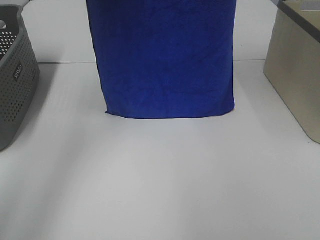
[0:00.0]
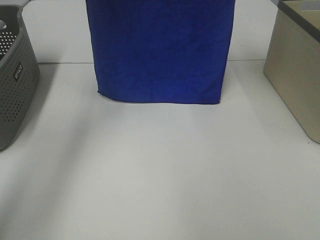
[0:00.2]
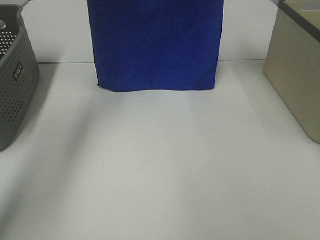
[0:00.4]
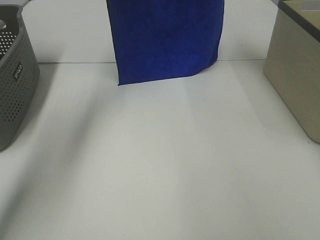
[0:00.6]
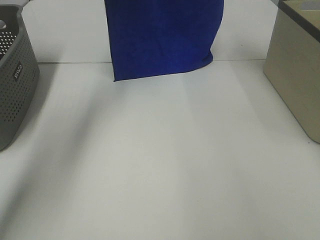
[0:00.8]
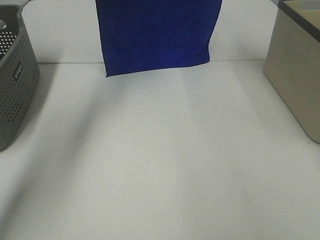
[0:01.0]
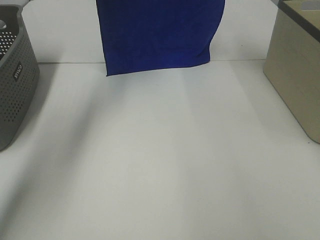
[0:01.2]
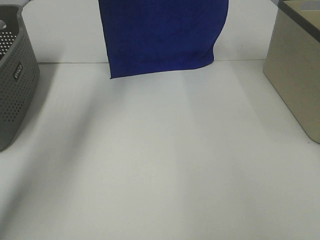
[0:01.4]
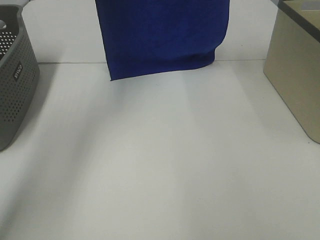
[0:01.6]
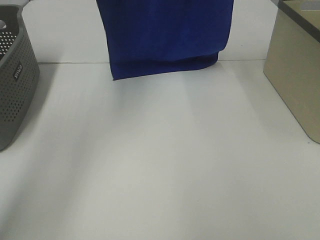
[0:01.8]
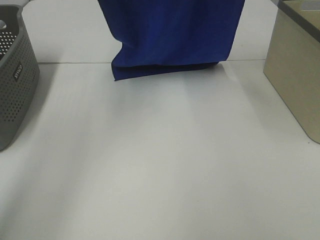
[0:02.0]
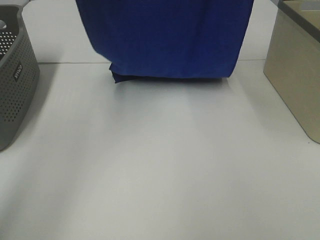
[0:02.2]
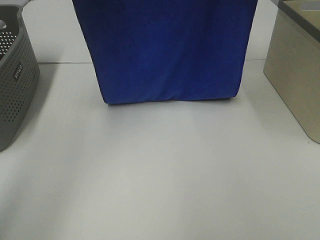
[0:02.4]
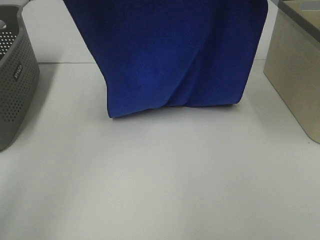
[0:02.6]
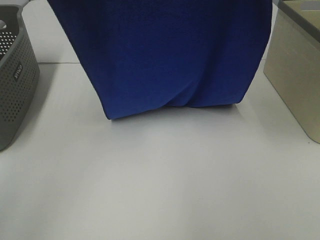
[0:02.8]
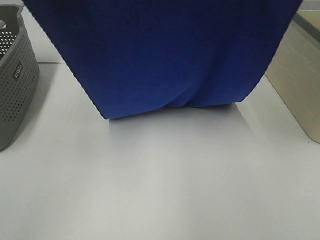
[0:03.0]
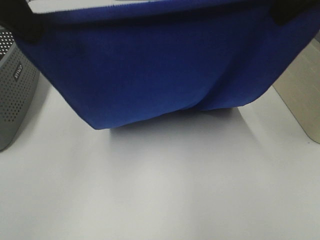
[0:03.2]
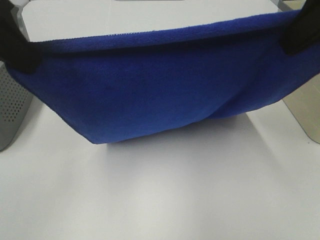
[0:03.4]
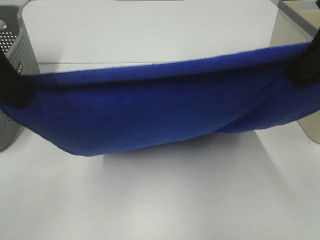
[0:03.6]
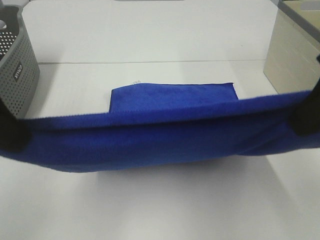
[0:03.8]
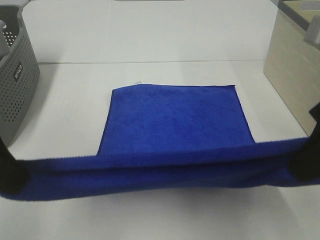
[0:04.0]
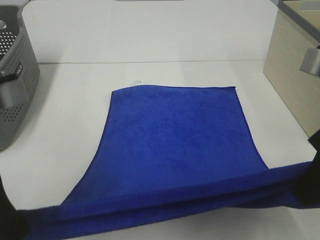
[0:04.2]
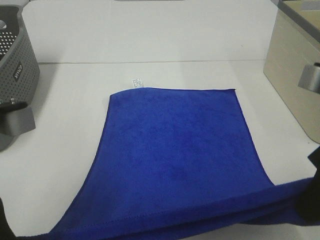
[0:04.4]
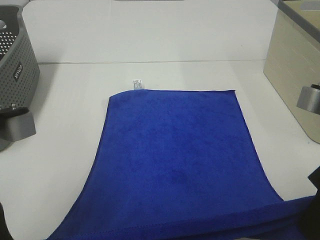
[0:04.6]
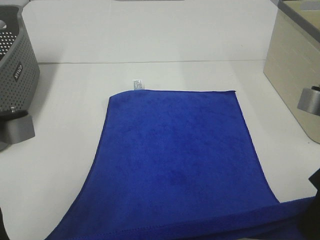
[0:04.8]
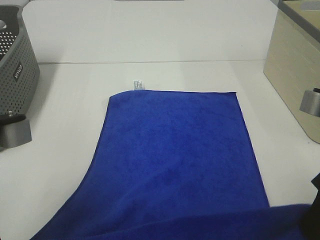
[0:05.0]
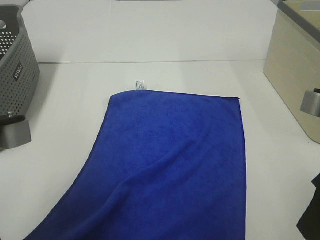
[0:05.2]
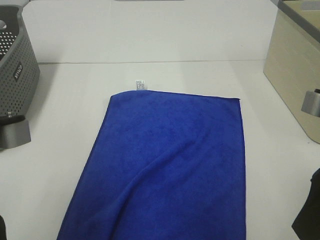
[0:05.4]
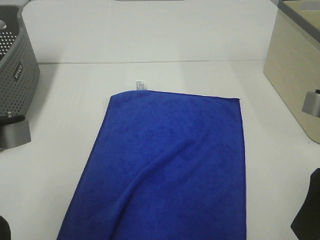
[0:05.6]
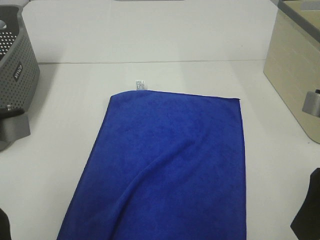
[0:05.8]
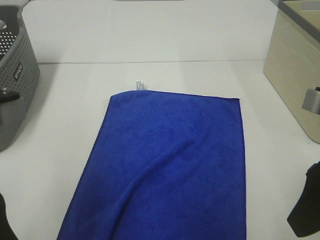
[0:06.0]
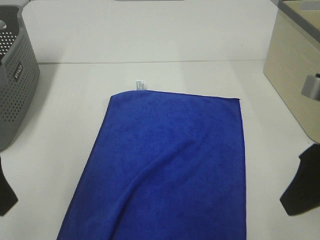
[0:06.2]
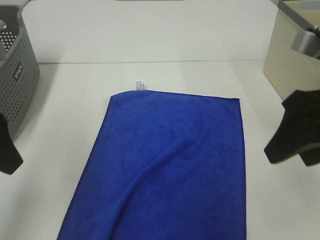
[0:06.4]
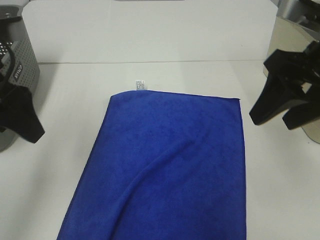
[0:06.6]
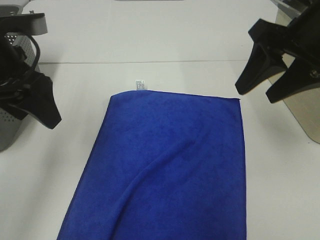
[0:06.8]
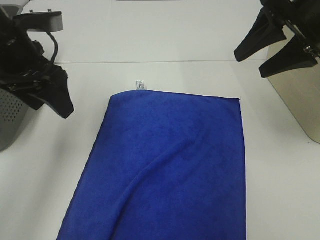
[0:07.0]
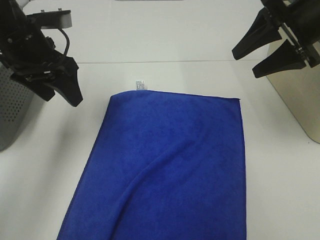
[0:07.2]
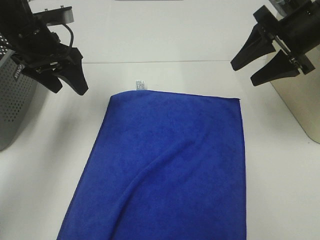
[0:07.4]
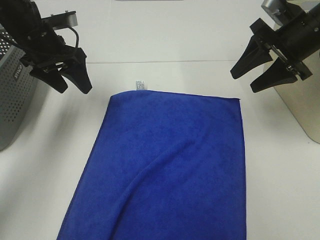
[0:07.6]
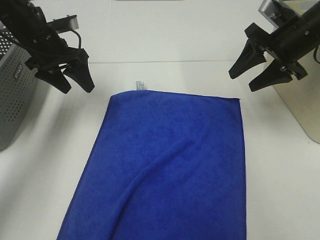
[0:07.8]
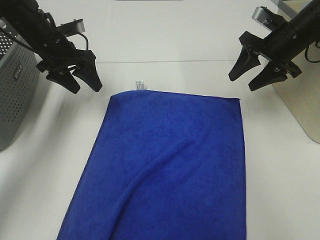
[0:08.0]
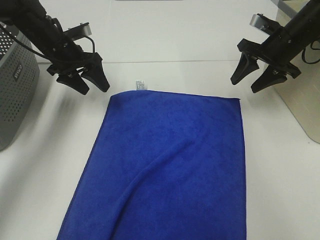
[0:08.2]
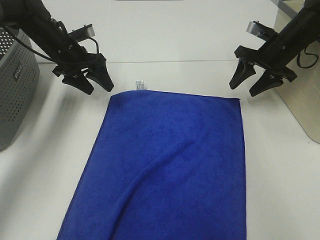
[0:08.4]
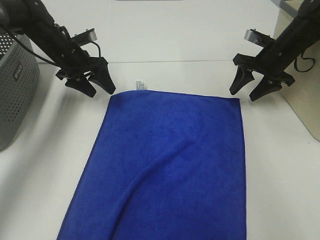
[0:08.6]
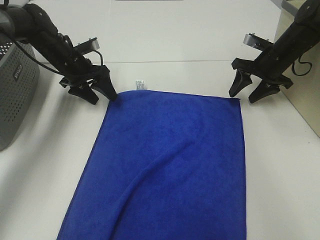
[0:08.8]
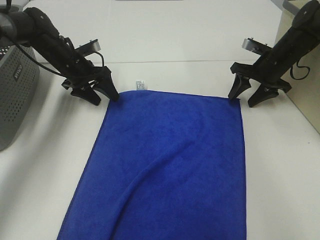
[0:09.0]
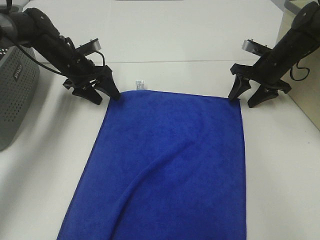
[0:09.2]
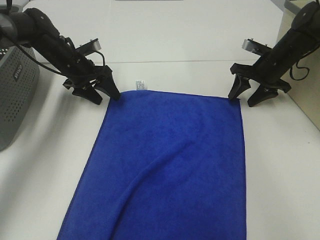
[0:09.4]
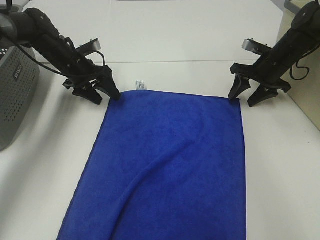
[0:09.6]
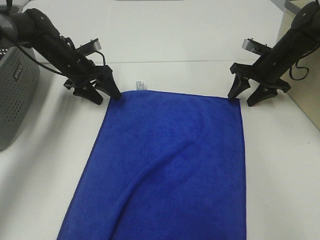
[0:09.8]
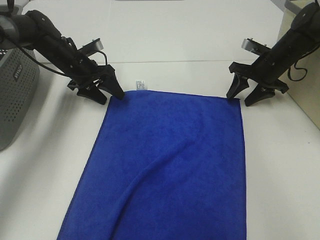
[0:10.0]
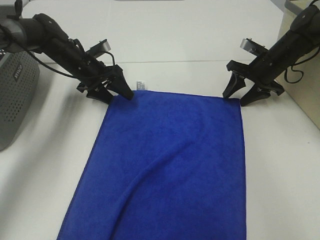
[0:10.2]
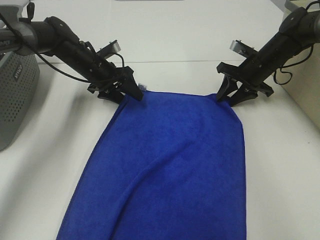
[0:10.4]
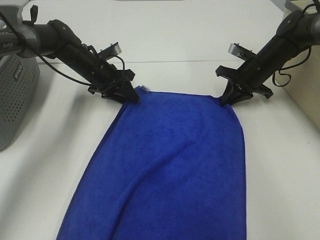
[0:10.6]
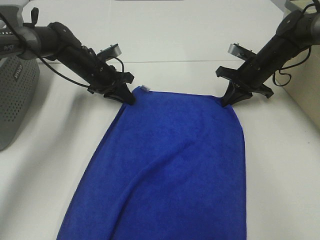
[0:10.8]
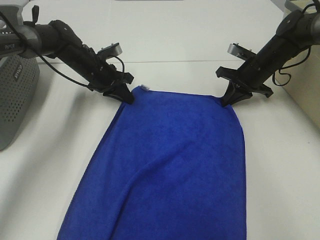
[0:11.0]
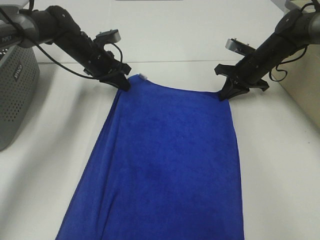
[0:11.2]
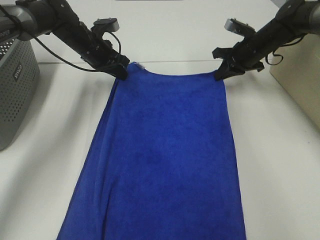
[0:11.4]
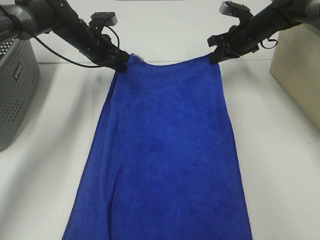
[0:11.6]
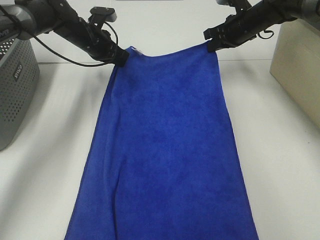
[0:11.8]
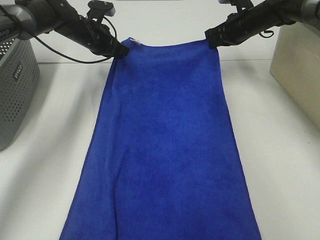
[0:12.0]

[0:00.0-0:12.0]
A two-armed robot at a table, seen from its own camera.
Task of the whole recording: Remove the towel and place it.
Step, 0.0 to 2.2 s: Left hand: spread the blue towel flat on the table.
Step, 0.0 to 2.2 s: Right hand: spread the blue towel flat on the table.
Step, 2.4 to 9.2 s: Left hand:adjust the blue towel.
Step, 2.4 to 9.2 s: Right hand:adjust the blue towel.
0.0 to 1.6 s: The left gripper shifts some 10 cm forward.
1.6 to 3.0 s: Both grippers travel together backward, some 20 cm.
3.0 to 4.4 s: Both grippers move downward and backward, some 20 cm.
4.4 to 6.0 s: The right gripper opens up; the left gripper opens up.
6.0 to 7.6 s: Both grippers move forward, roughly 25 cm.
7.6 to 9.0 s: The grippers both shift downward and forward by some 15 cm.
9.0 to 10.4 s: The grippers move only a little.
10.4 to 12.0 s: Both grippers travel together forward and upward, some 10 cm. The right gripper closes its fingers. The left gripper closes.

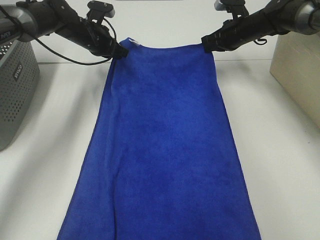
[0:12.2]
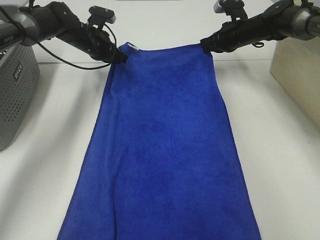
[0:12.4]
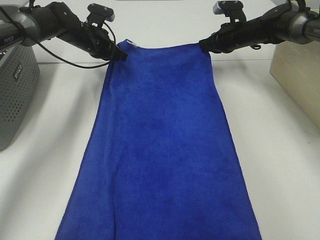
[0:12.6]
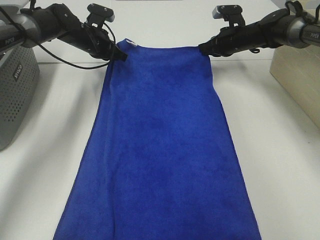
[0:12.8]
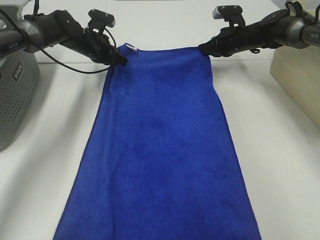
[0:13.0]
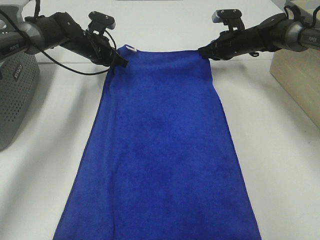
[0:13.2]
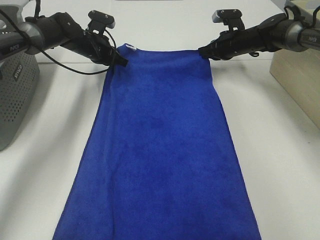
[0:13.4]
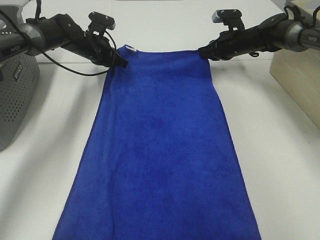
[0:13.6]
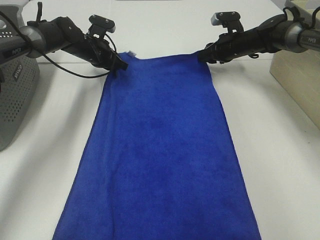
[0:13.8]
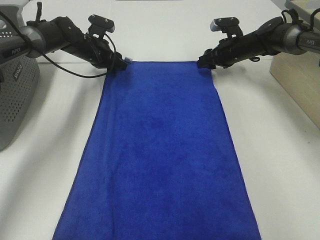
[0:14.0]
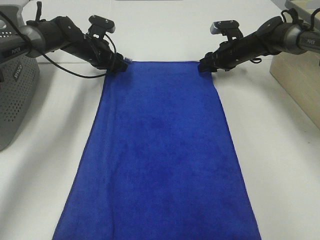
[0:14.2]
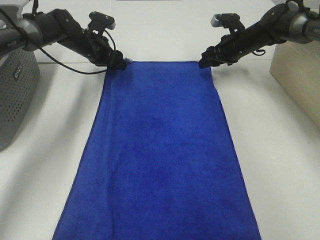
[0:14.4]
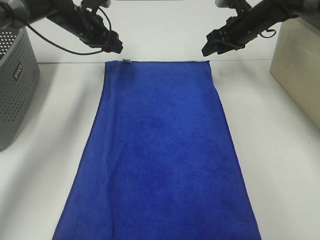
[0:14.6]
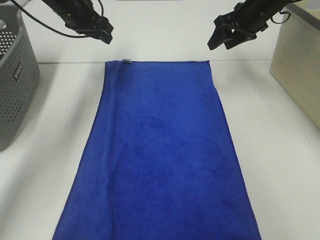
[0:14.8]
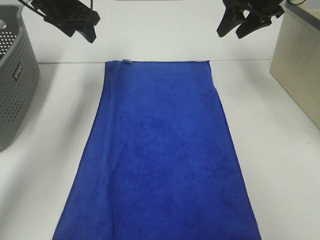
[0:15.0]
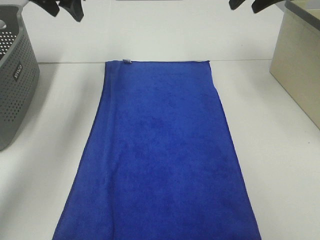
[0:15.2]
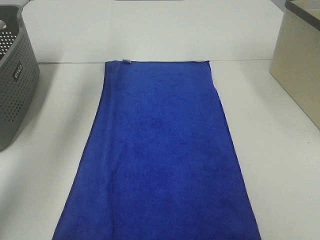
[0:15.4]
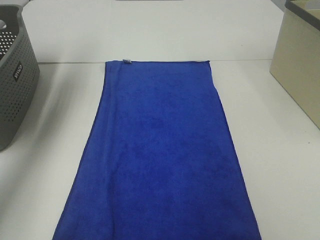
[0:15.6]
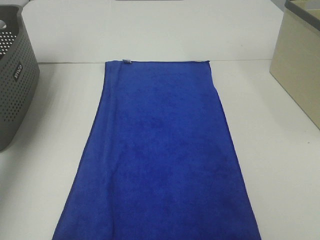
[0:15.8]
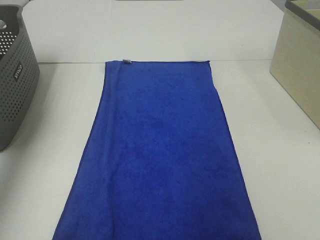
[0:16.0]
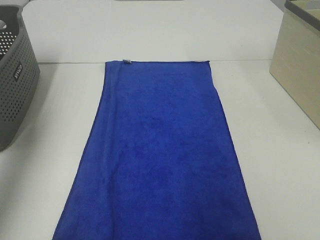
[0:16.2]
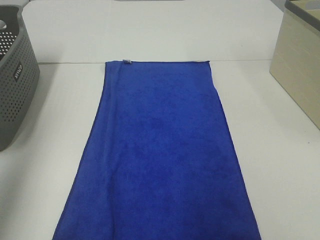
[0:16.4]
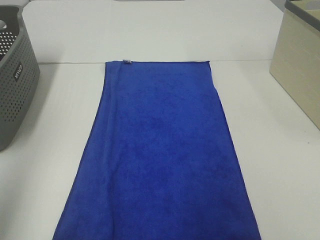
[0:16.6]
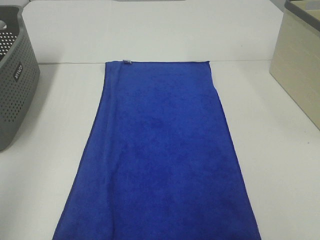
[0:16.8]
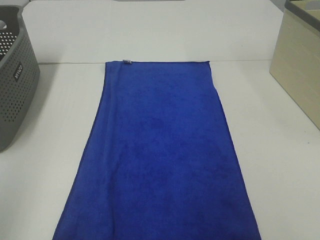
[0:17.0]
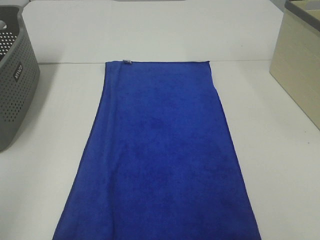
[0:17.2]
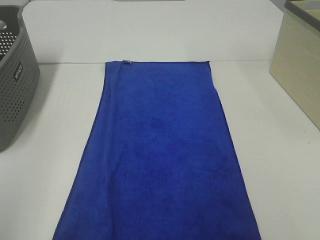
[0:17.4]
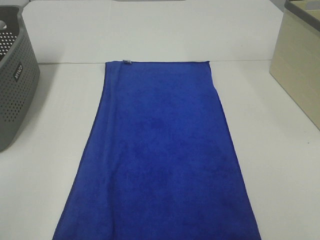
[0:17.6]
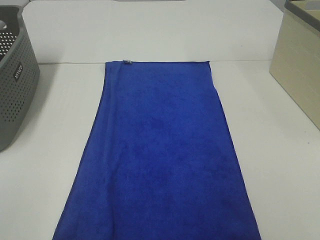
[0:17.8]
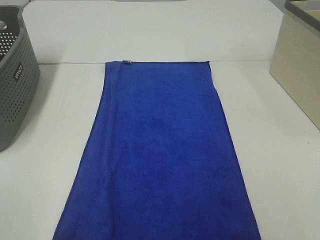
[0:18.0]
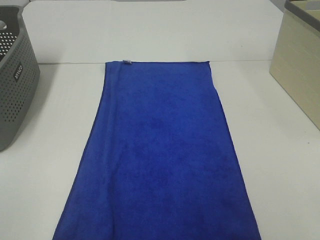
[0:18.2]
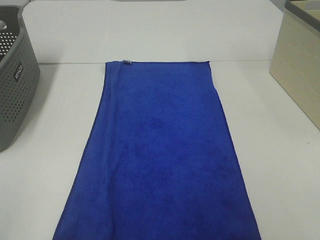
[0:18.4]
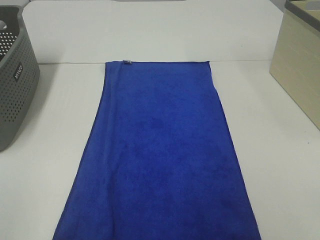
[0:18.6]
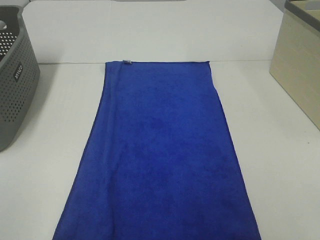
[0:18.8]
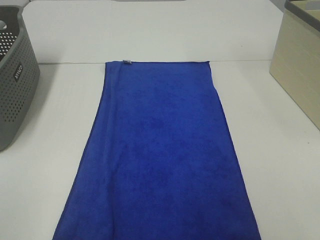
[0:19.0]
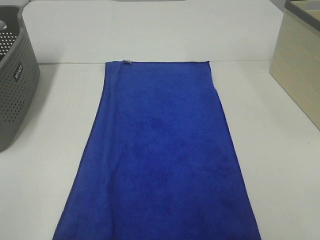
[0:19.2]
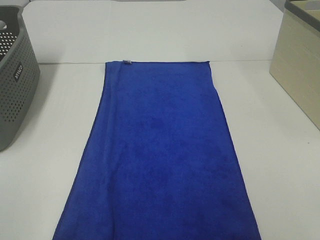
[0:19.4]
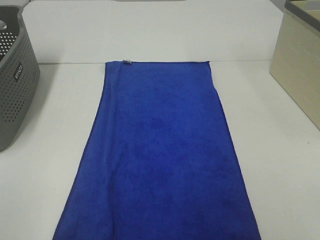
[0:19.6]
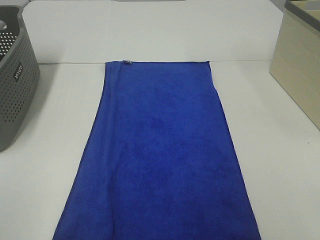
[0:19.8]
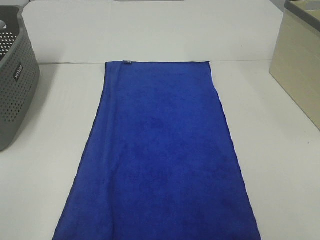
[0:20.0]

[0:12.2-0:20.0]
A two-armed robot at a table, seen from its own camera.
Task of the whole recording: Remove the towel and place it.
12.2 to 13.8 s: The right gripper opens up.
13.8 to 15.4 s: The right gripper goes about 35 cm upward and backward. The left gripper heads upward, covering approximately 25 cm.
15.4 to 16.8 s: The left gripper heads backward, covering roughly 40 cm.

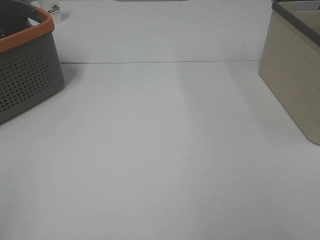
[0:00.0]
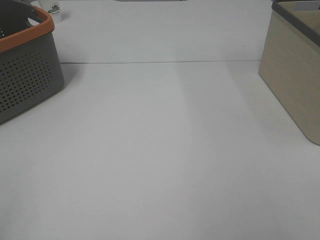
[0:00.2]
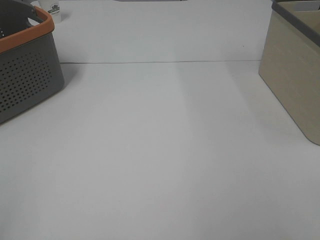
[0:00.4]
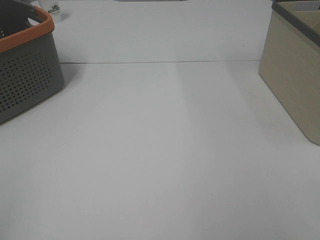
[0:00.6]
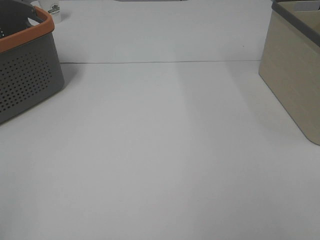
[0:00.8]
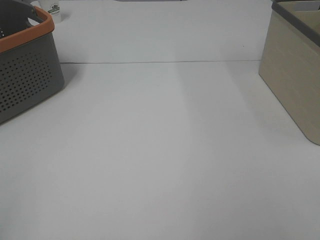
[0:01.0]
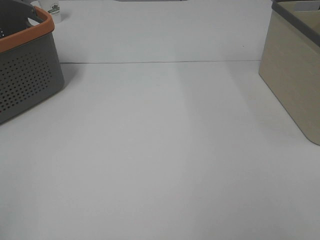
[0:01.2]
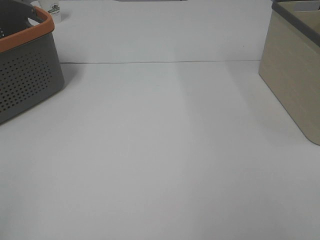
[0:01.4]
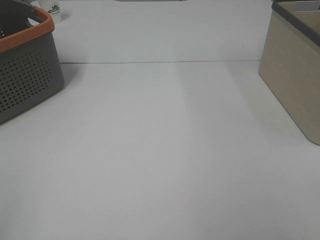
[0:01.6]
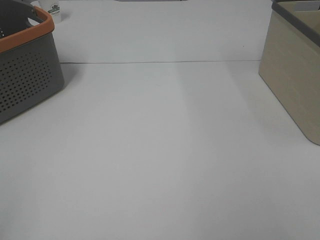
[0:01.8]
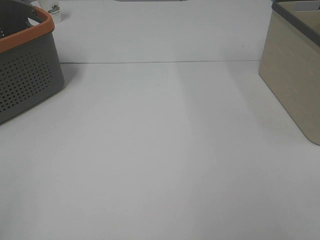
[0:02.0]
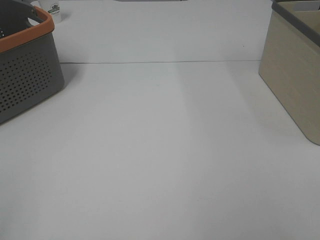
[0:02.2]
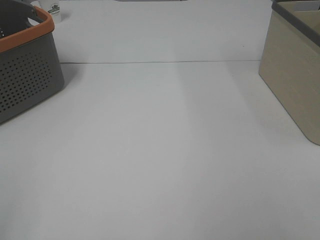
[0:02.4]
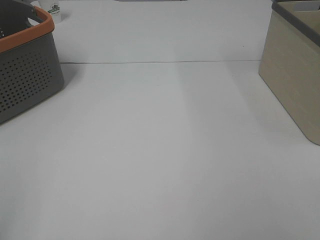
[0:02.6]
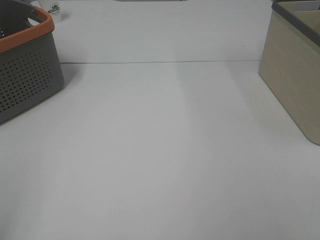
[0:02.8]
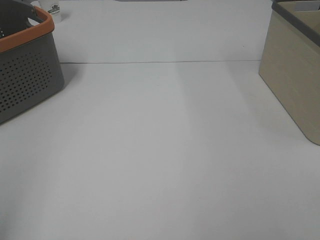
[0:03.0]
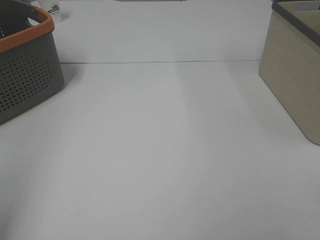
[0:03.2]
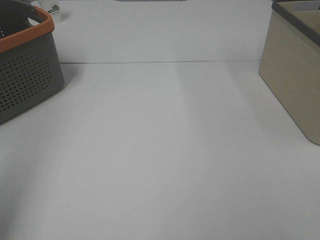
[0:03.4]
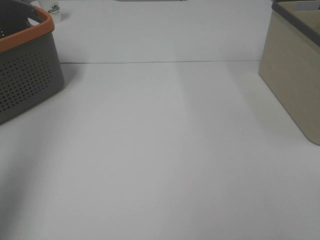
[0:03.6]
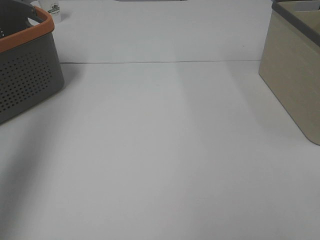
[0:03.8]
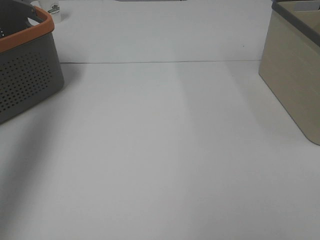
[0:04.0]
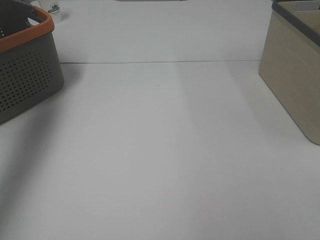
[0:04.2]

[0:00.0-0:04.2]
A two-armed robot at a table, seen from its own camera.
Task of the whole recording: Remove the towel and place it.
0.0 to 1.4 s: Both grippers stay put.
2.8 to 4.2 s: The left gripper goes roughly 35 cm forward.
